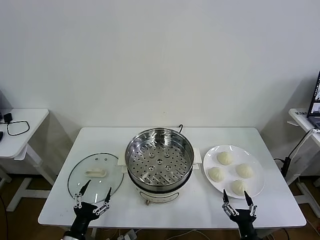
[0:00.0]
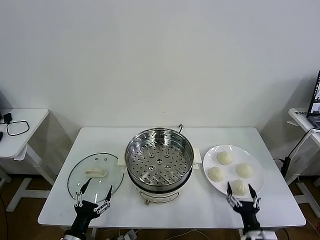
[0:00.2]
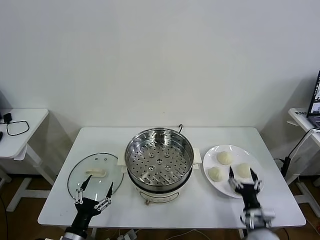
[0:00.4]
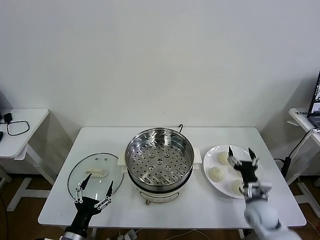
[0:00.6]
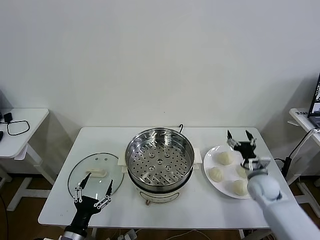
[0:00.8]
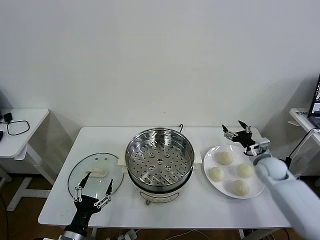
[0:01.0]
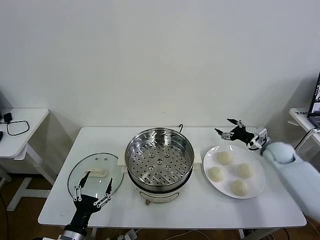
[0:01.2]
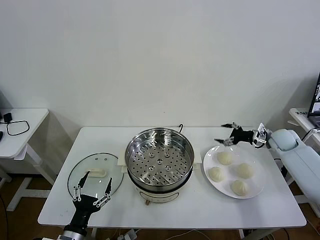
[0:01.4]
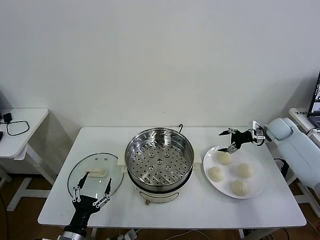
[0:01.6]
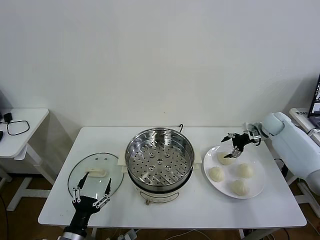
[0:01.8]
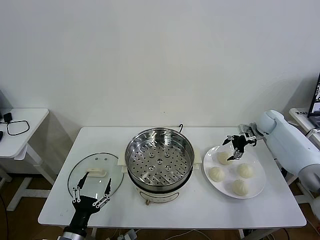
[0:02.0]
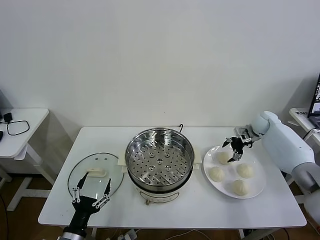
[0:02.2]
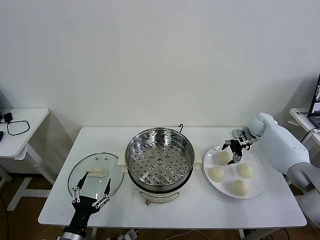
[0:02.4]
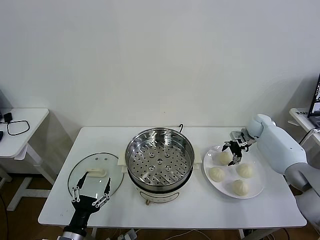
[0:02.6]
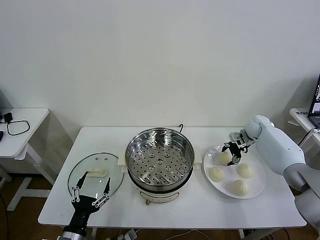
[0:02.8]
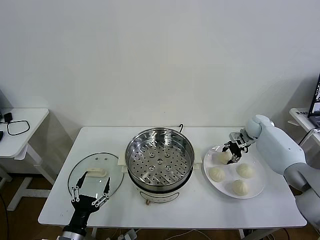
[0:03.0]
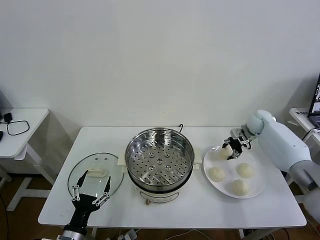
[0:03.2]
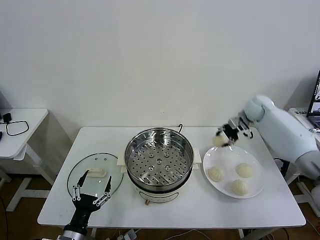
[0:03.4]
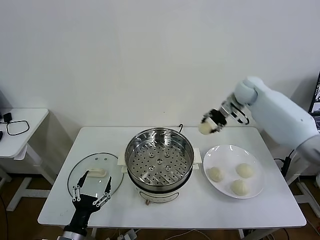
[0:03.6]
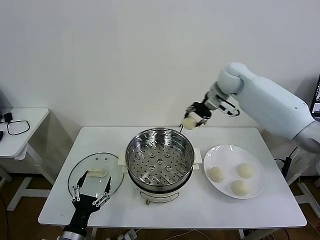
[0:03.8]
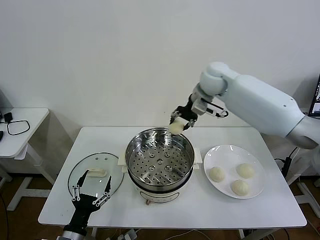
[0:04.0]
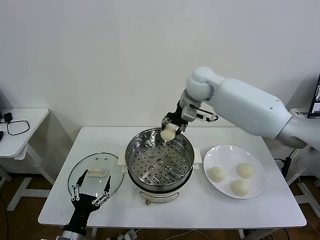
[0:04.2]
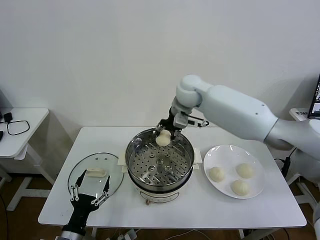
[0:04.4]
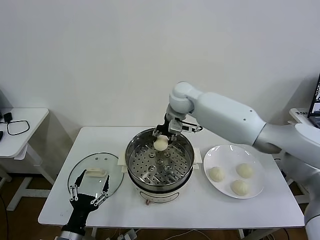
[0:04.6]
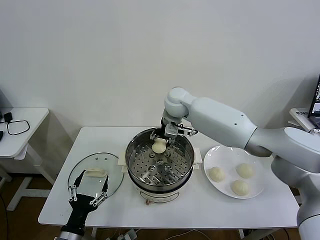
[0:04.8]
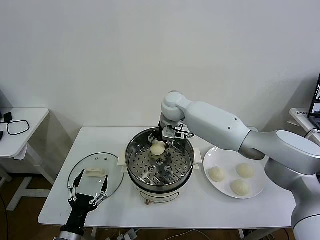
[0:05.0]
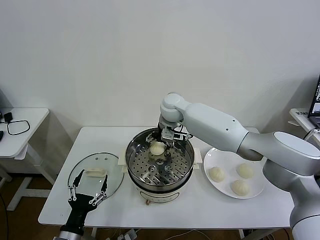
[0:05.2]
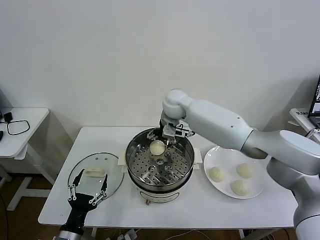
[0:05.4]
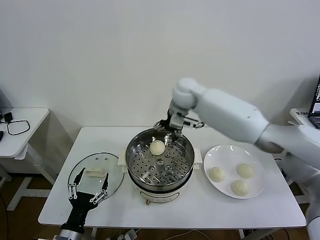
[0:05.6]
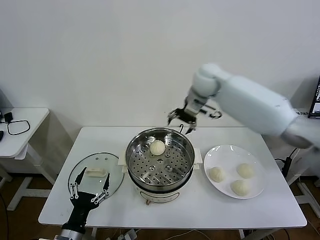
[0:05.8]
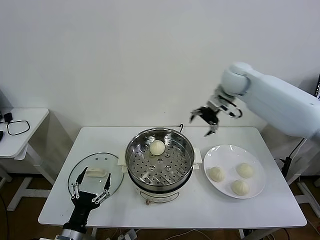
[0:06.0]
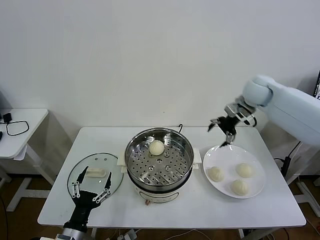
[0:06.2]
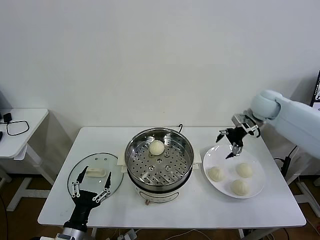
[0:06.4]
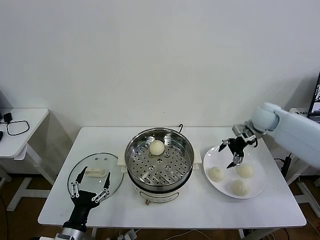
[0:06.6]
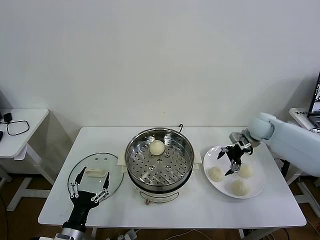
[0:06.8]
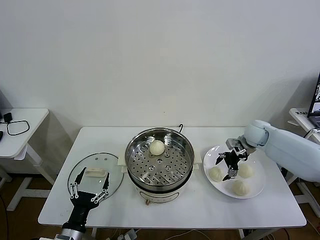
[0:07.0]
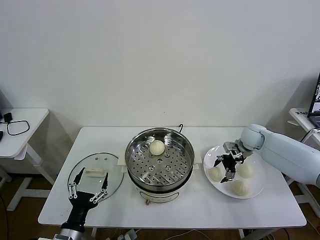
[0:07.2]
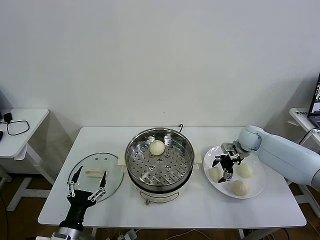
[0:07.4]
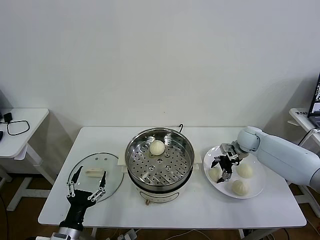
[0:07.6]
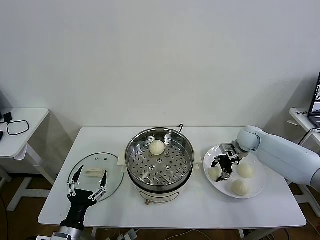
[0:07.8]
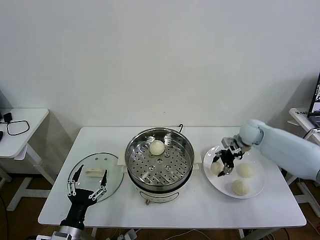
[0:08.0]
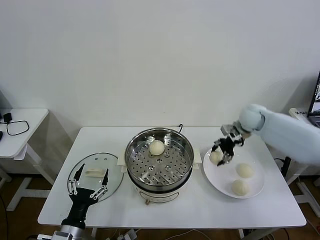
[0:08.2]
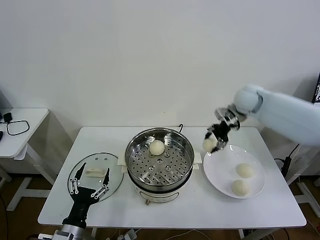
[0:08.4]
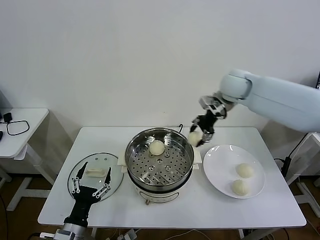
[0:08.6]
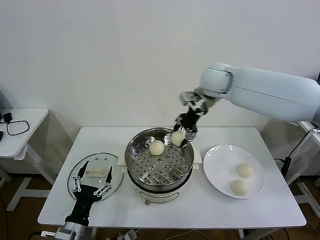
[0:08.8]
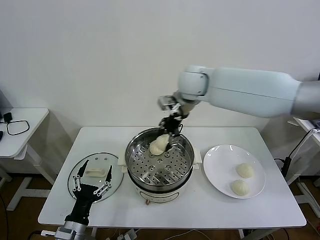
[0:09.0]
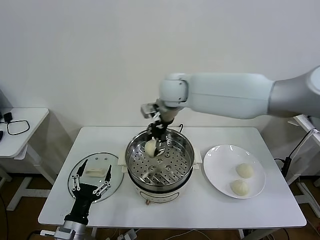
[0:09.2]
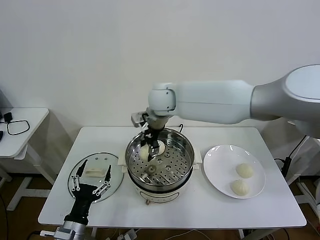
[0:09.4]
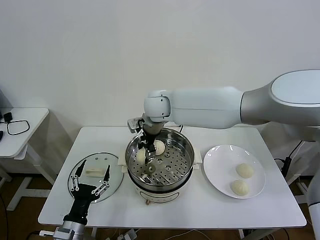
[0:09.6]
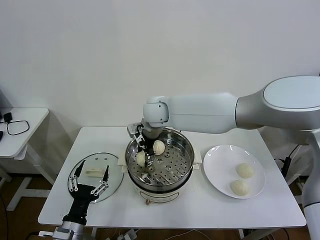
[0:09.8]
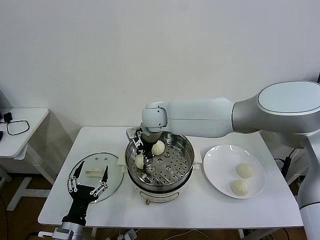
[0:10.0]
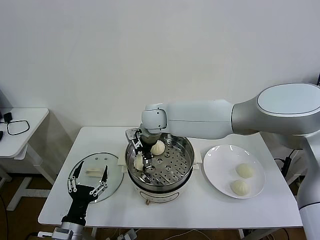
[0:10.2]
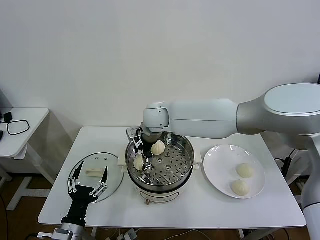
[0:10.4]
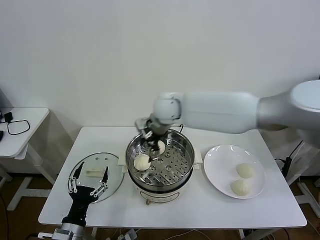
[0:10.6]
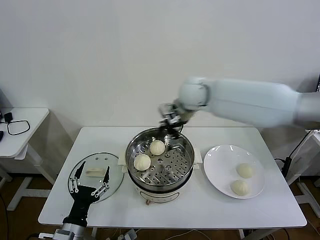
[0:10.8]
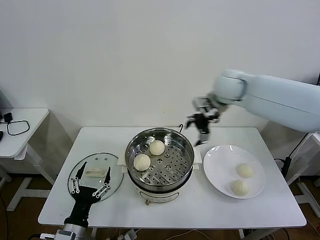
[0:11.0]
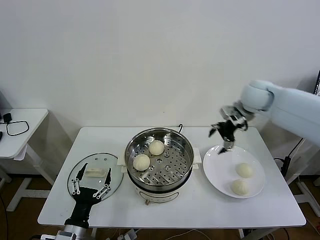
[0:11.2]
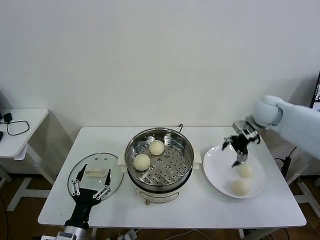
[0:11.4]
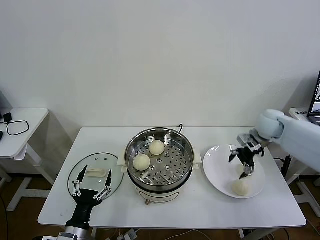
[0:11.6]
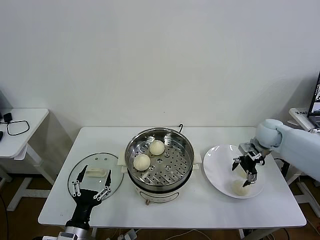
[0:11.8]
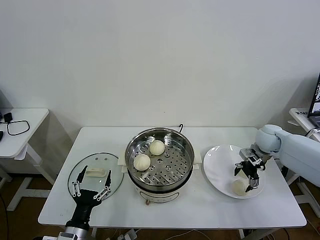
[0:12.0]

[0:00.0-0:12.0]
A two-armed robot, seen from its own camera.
Task of the whole recording: take steamed baozi put them in steamer then cover it.
Step, 0:00.0 to 0:02.8: Grasp the baozi in the plate with right gripper.
Step, 0:03.2 to 0:05.4: Place the baozi on the steamer with right gripper.
Step, 0:05.6 to 0:07.6: Grasp the baozi in the plate with right gripper.
Step, 0:07.8 to 0:10.4: Place the baozi on the steamer with right gripper.
0:01.6 to 0:03.0: The right gripper moves to the left, roughly 5 cm, and closes.
0:03.0 to 0:04.4: The right gripper heads to the left and upward, covering approximately 35 cm.
0:04.4 to 0:06.0: The right gripper is displaced to the right by about 15 cm, and opens.
0:06.0 to 0:07.6: The right gripper heads downward and to the right, covering about 25 cm.
0:07.6 to 0:09.0: The right gripper travels to the left and upward by some 35 cm, and closes its fingers.
0:09.0 to 0:10.4: The right gripper is displaced to the left and downward by about 15 cm, and opens.
0:10.4 to 0:12.0: The right gripper travels to the right by roughly 40 cm.

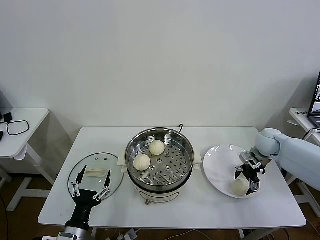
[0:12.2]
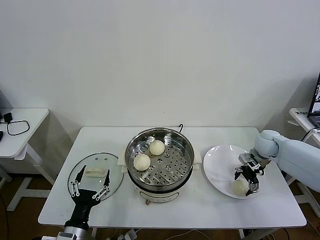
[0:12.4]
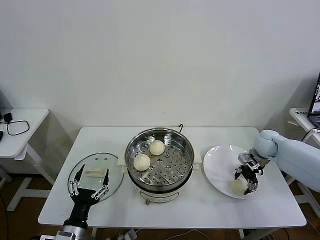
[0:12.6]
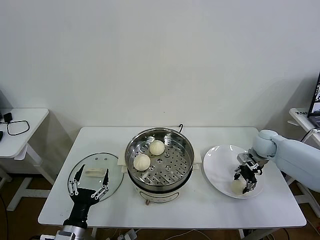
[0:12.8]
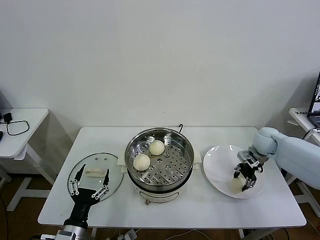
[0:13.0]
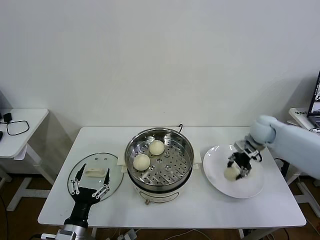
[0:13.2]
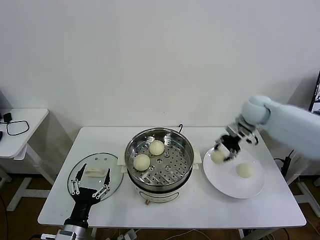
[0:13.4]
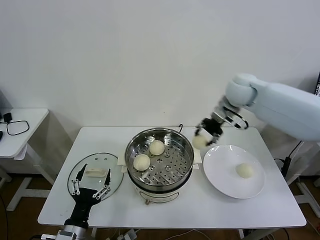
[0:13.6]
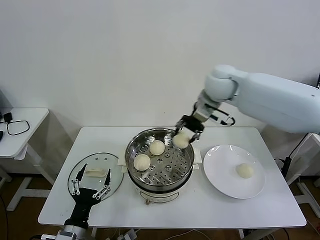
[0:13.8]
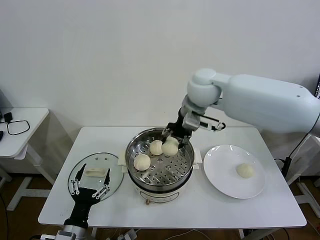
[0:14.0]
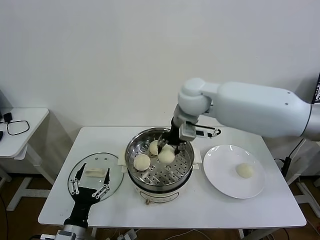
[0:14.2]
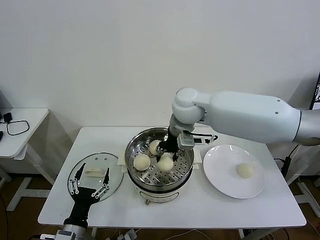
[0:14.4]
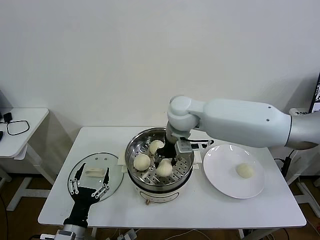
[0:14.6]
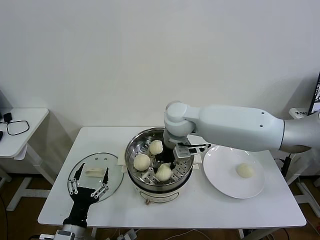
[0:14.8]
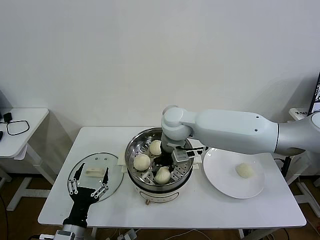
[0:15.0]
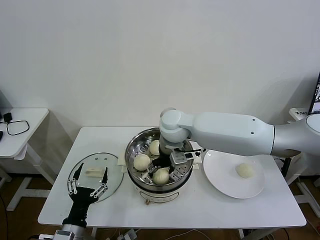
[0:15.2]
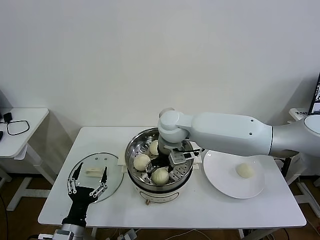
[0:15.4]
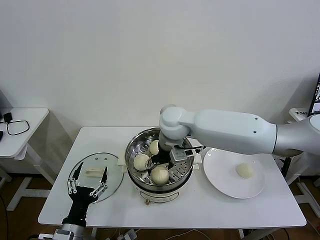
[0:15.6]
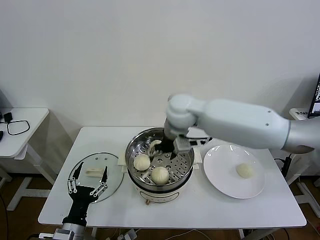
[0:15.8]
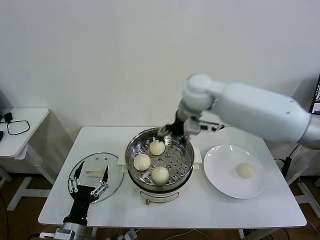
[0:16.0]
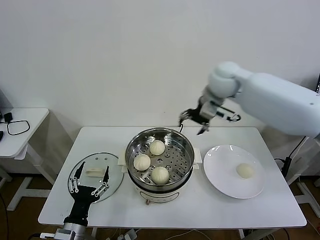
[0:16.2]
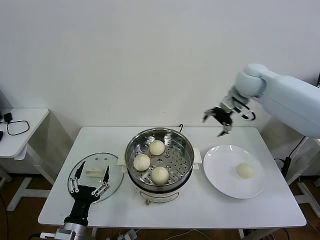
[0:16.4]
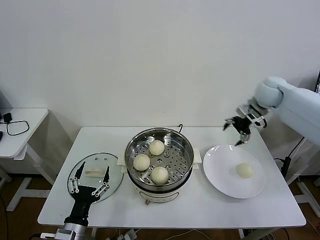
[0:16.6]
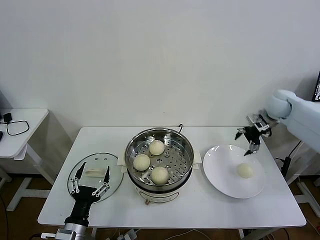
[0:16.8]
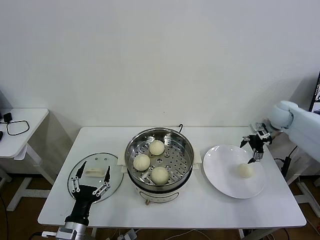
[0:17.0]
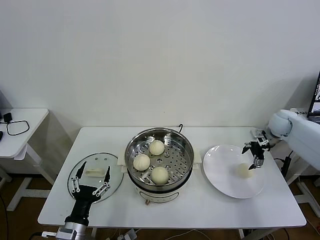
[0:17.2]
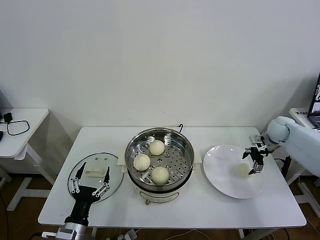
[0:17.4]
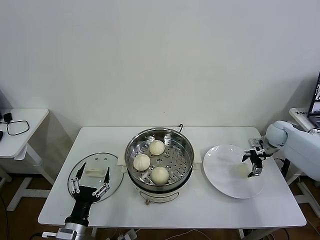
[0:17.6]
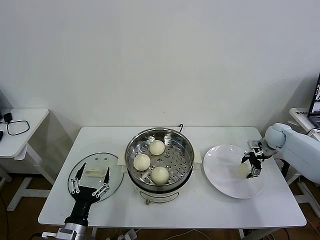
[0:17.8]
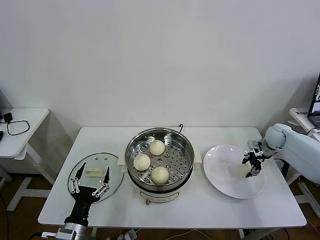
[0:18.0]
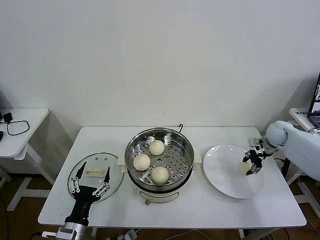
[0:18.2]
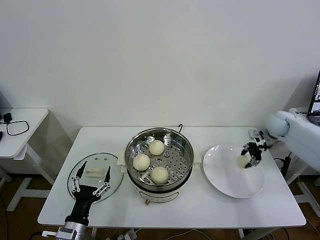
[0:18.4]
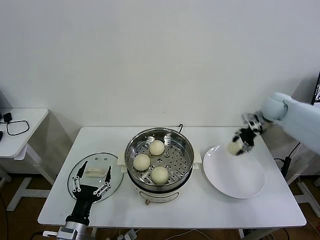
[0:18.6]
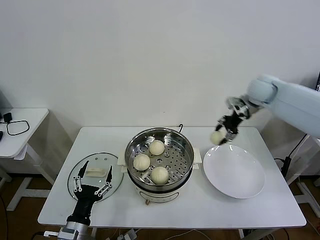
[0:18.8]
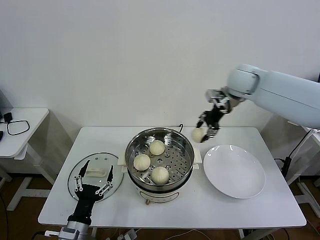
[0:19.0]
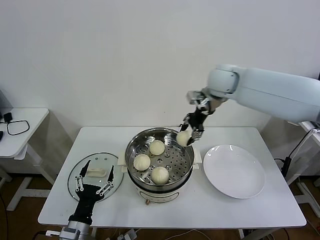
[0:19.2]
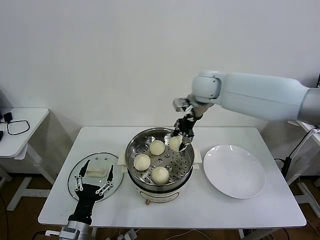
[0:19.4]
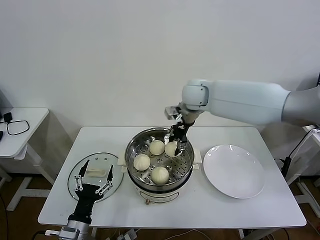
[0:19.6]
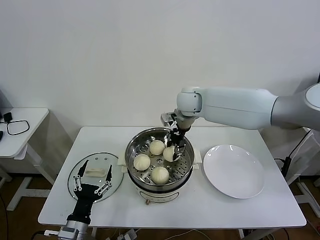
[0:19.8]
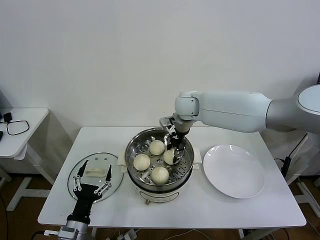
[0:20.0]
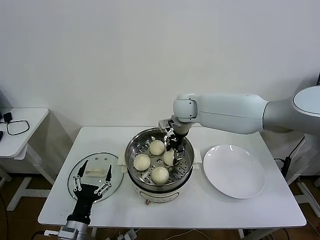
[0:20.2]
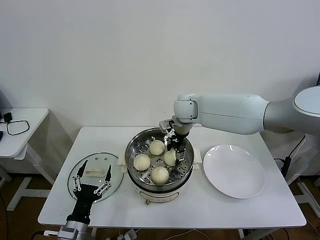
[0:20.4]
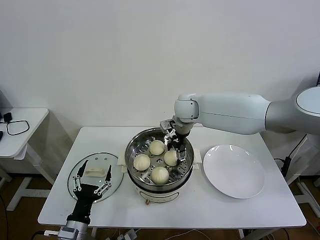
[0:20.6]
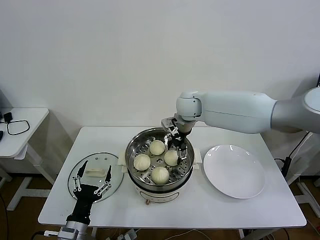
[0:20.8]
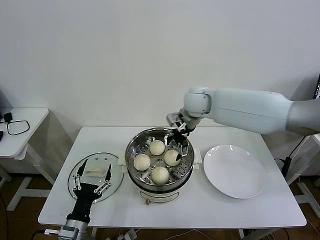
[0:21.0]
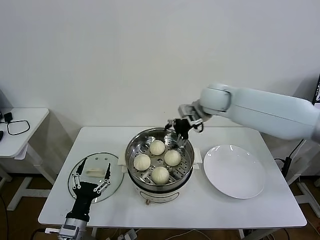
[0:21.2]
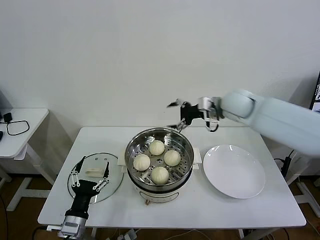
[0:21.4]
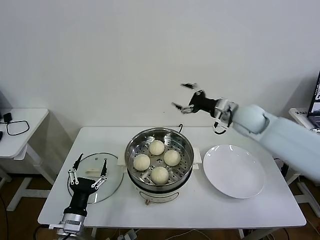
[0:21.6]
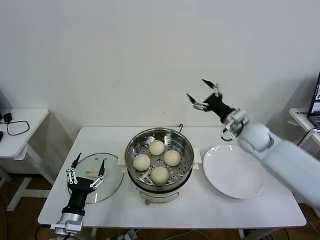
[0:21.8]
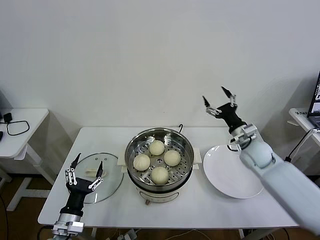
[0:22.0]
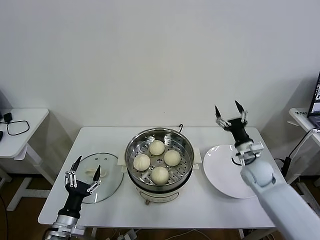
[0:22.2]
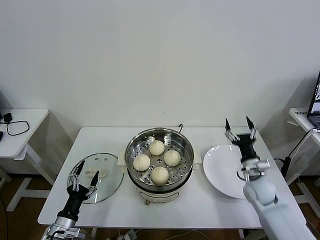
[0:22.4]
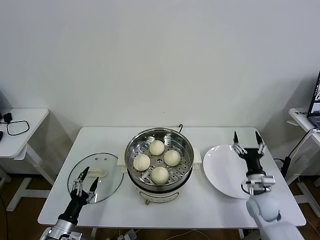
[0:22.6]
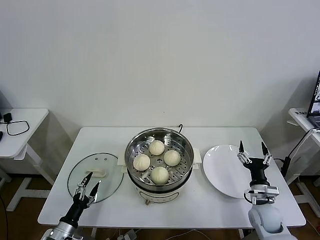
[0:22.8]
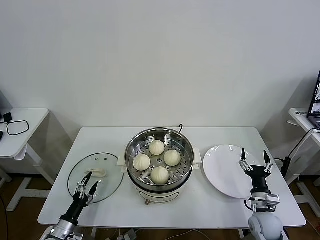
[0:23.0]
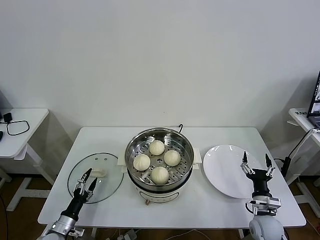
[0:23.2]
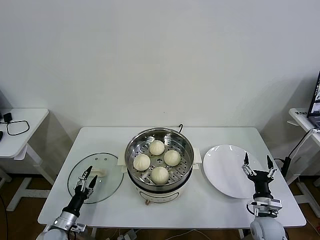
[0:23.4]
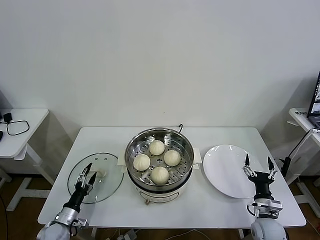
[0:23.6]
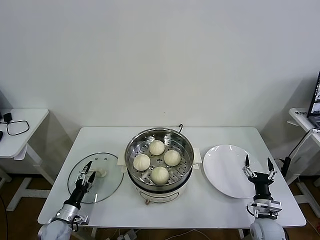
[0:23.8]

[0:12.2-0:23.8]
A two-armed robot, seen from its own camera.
Task of the whole recording: take steamed baozi put them in steamer then cover it.
Step, 0:13.0 to 0:15.6: Place the baozi on the steamer with right gripper.
Step, 0:15.8 to 0:18.2: Grasp the baozi in the plate with right gripper.
Step, 0:18.4 to 0:20.8: Place the baozi on the steamer with right gripper.
0:12.2 to 0:13.6: The right gripper is displaced upward and to the left by about 25 cm, and closes its fingers.
0:13.6 to 0:15.0: The right gripper goes some 20 cm to the left and backward.
0:15.0 to 0:16.6: The right gripper moves to the right, some 30 cm, and opens.
0:16.6 to 0:18.0: The right gripper heads downward and to the right, covering about 20 cm, and closes.
0:18.0 to 0:19.4: The right gripper heads to the left and upward, covering approximately 40 cm.
0:19.4 to 0:21.0: The right gripper moves downward, approximately 5 cm, and opens.
0:21.0 to 0:22.4: The right gripper goes approximately 40 cm downward, to the right and backward; the left gripper moves to the left, some 5 cm.
0:22.4 to 0:23.8: The left gripper goes roughly 15 cm downward, forward and to the left, while the right gripper is displaced backward and downward by approximately 15 cm.
